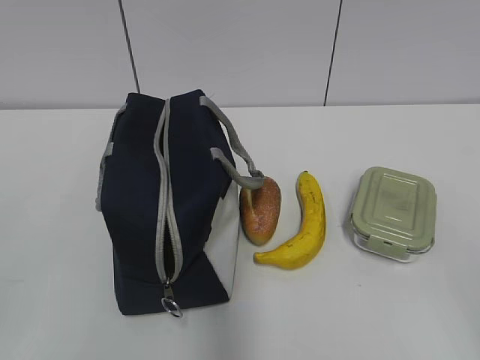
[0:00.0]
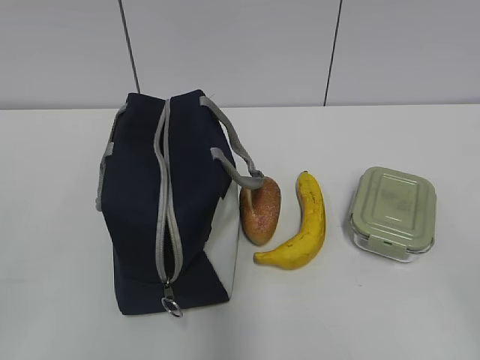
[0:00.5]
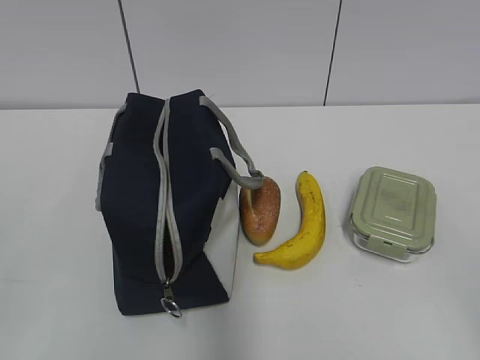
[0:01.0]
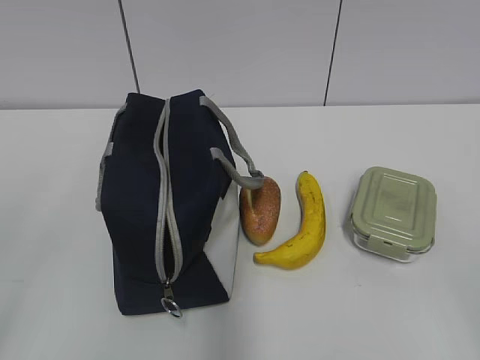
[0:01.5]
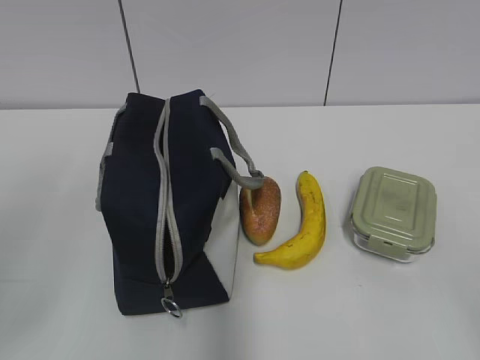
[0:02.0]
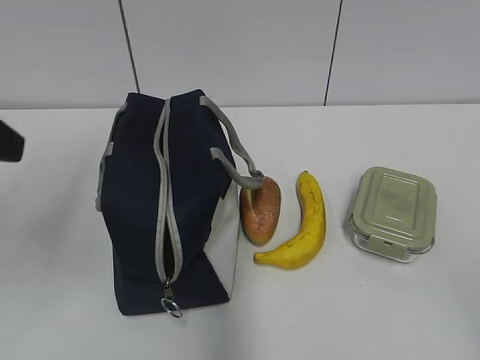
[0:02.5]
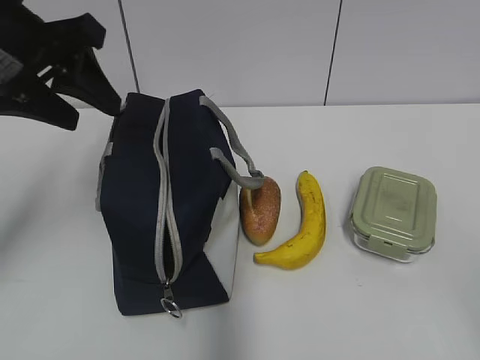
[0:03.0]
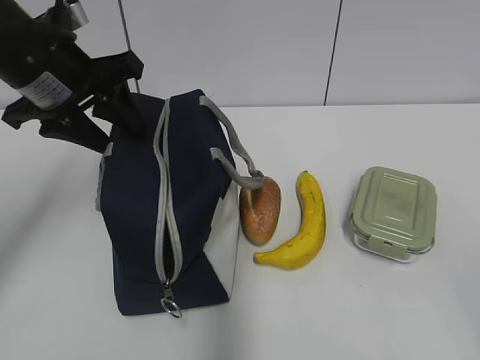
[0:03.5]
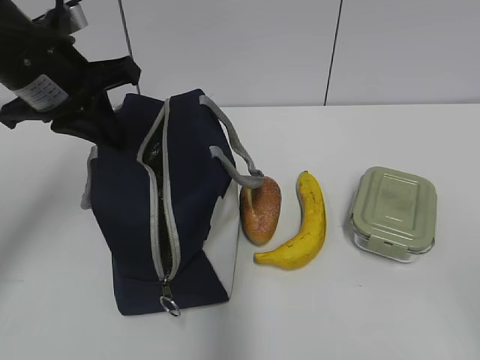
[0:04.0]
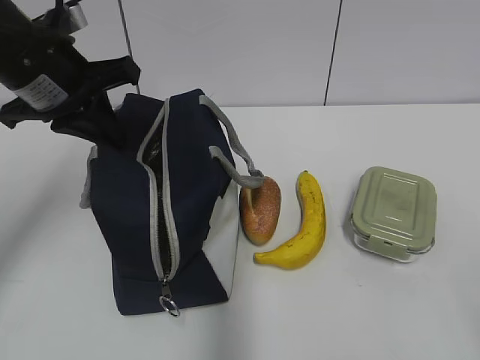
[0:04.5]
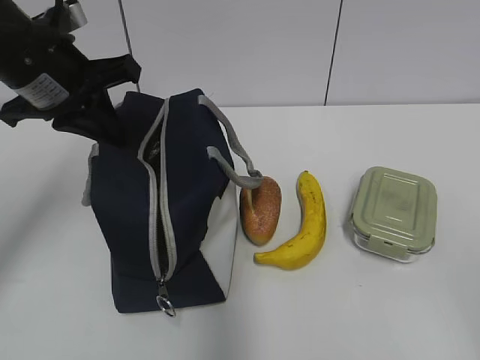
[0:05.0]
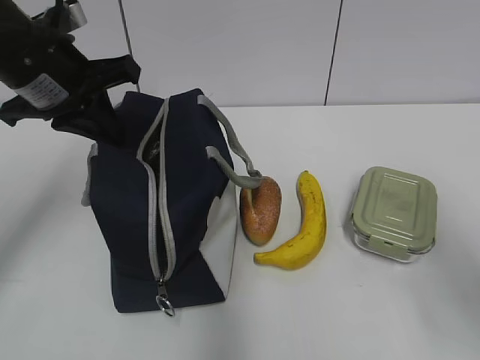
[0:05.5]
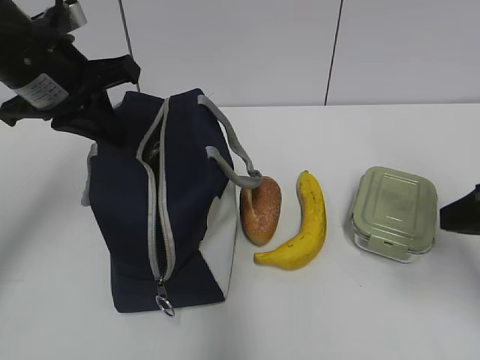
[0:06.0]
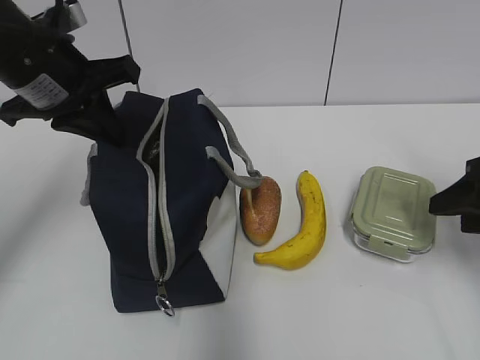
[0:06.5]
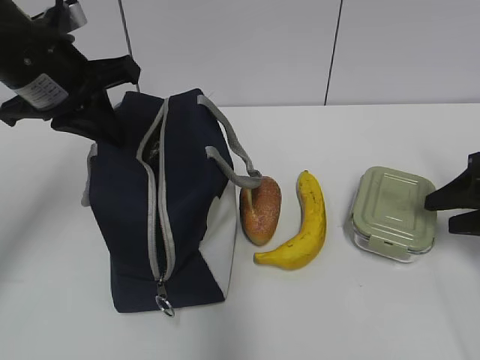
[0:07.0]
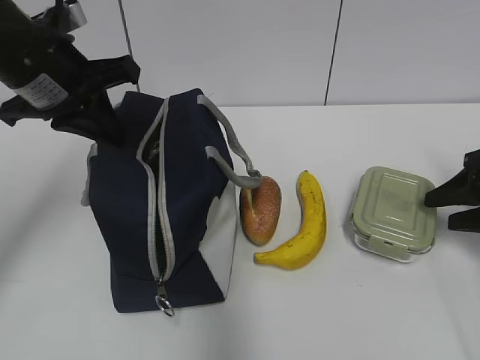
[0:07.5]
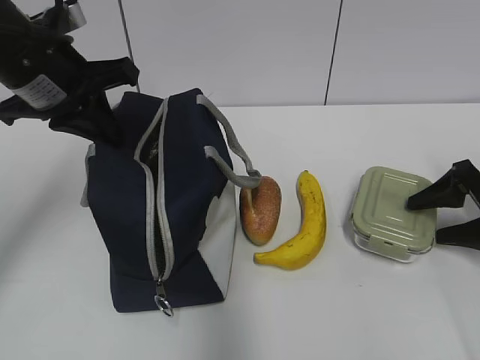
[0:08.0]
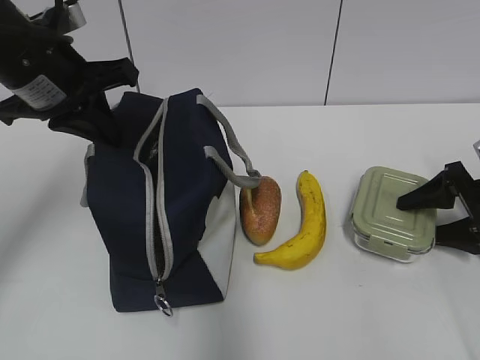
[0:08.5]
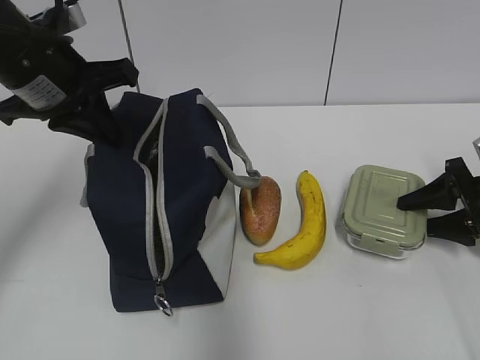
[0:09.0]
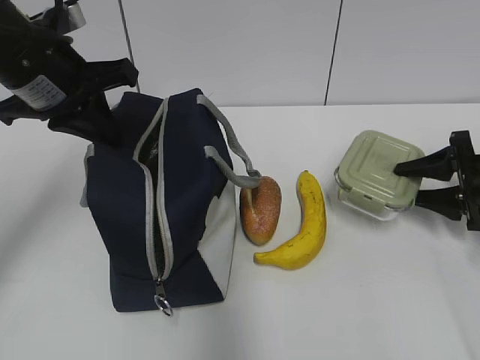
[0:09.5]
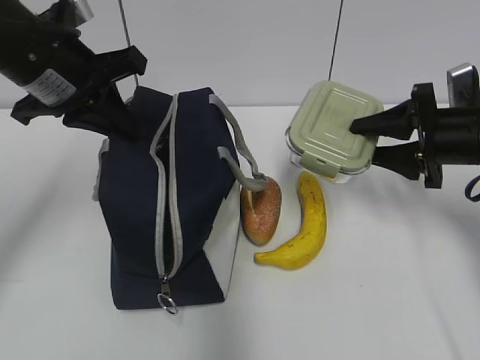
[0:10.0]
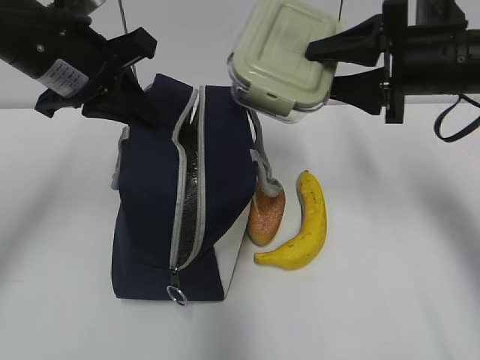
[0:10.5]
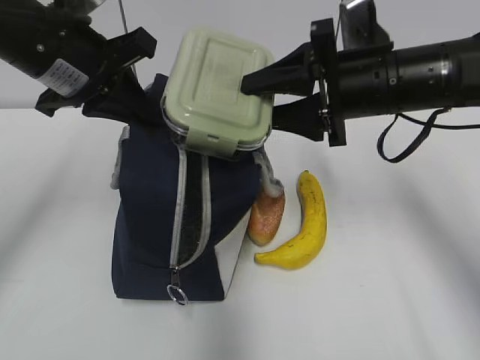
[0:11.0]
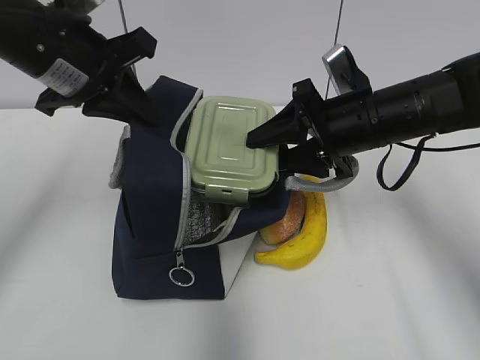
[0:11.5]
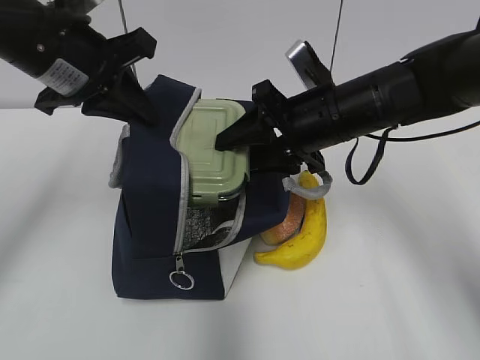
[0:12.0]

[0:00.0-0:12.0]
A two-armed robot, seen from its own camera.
Step, 0:00.0 to 0:09.0: Grab the lunch box with your right hand.
0:02.0 to 0:04.0: The left gripper moves forward, some 25 cm, and closes.
0:04.0 to 0:06.0: The right gripper moves forward, about 20 cm.
0:06.0 to 0:08.0: The right gripper travels forward, downward and to the right by approximately 20 cm.
0:08.0 to 0:10.0: The right gripper is displaced to the left and upward by some 10 cm, and closes its fingers.
0:10.0 to 0:12.0: The right gripper heads to the left, covering roughly 15 cm.

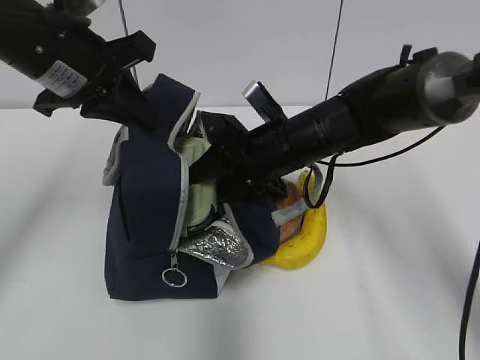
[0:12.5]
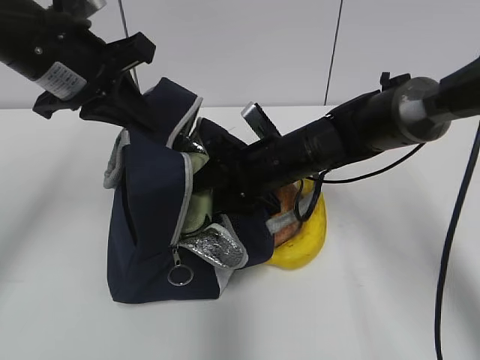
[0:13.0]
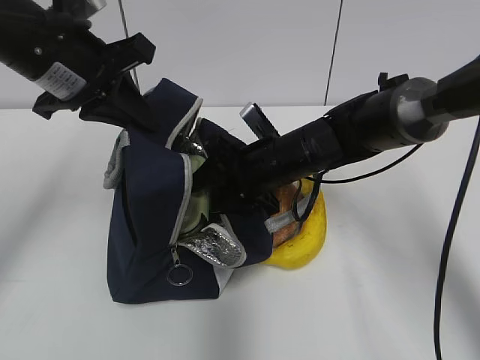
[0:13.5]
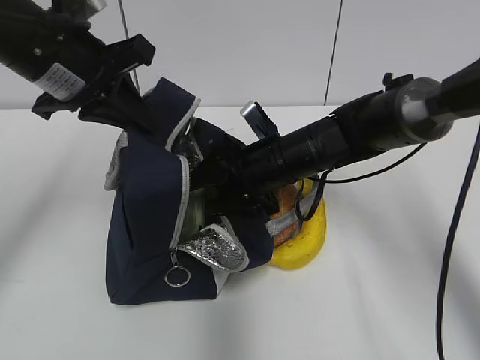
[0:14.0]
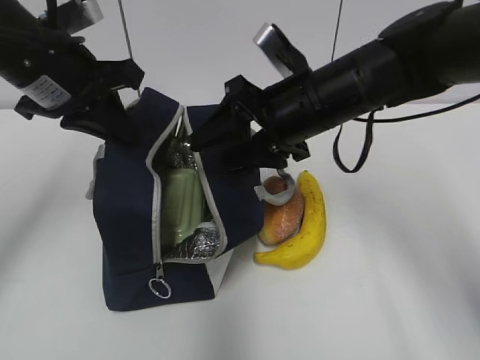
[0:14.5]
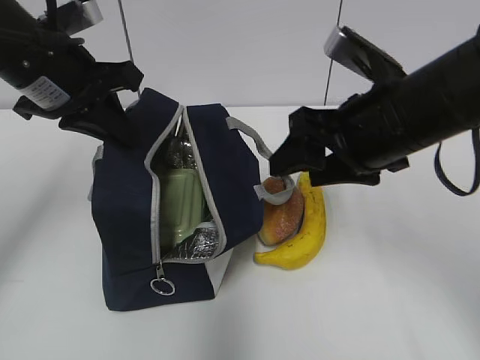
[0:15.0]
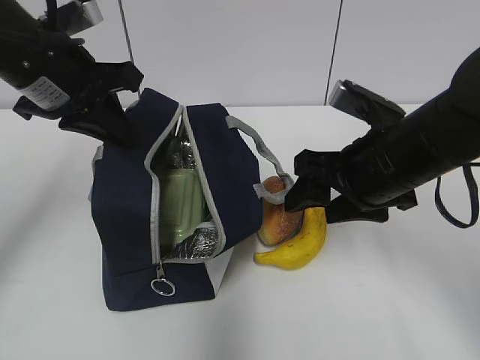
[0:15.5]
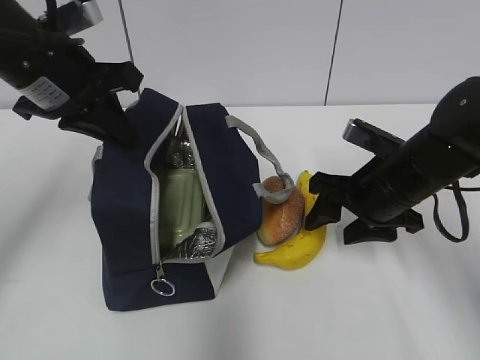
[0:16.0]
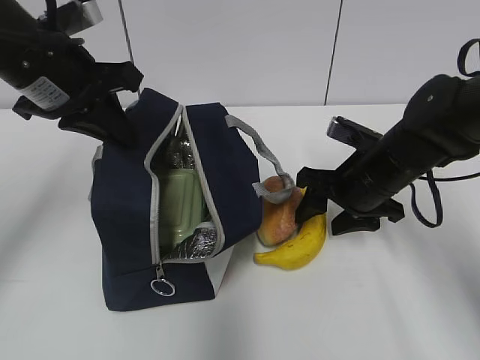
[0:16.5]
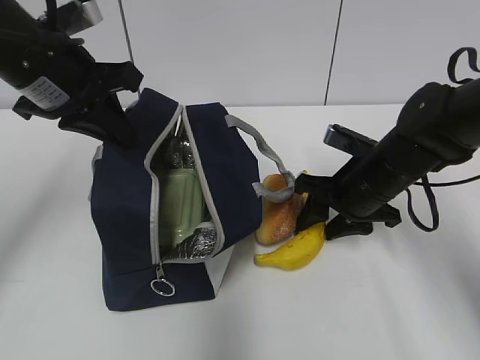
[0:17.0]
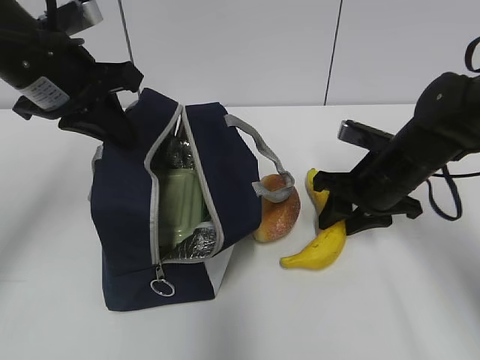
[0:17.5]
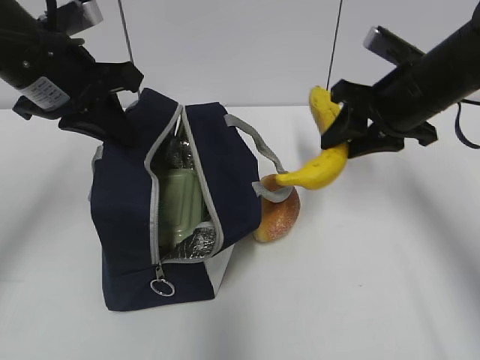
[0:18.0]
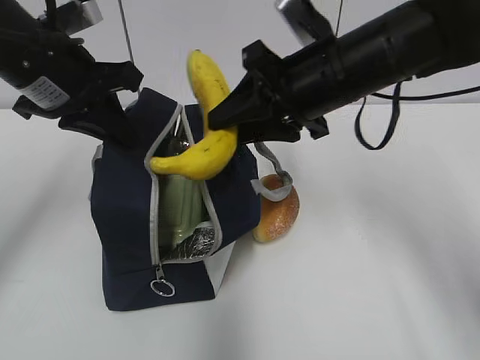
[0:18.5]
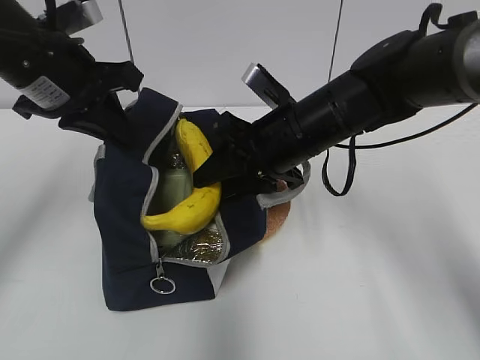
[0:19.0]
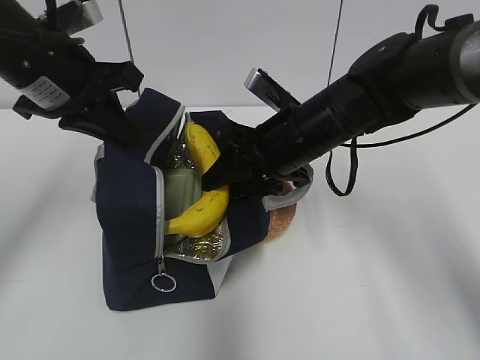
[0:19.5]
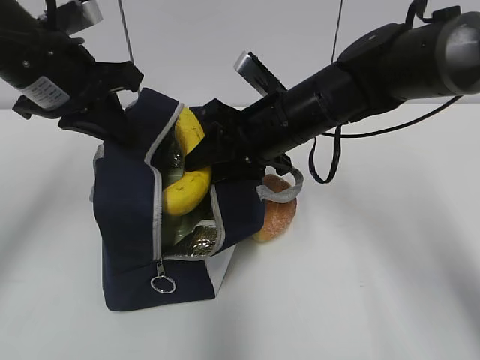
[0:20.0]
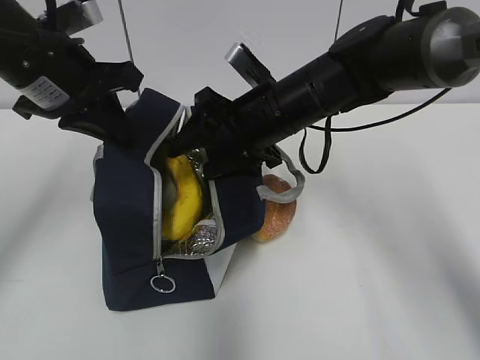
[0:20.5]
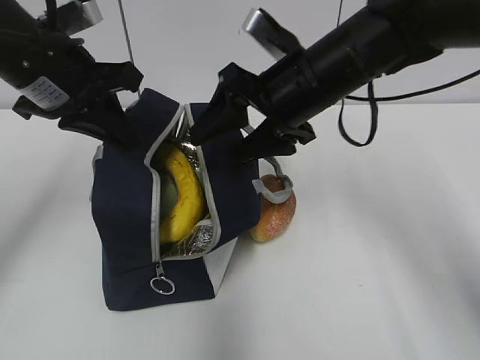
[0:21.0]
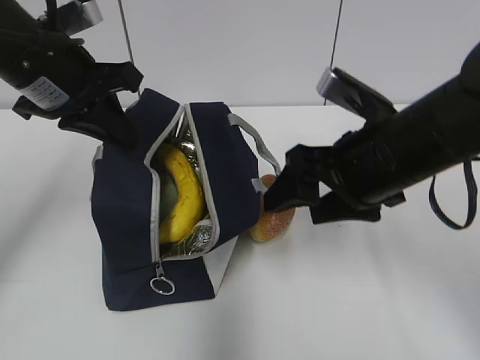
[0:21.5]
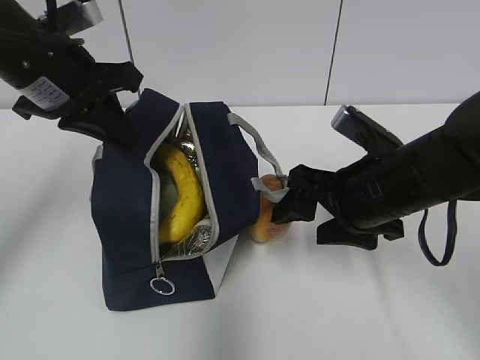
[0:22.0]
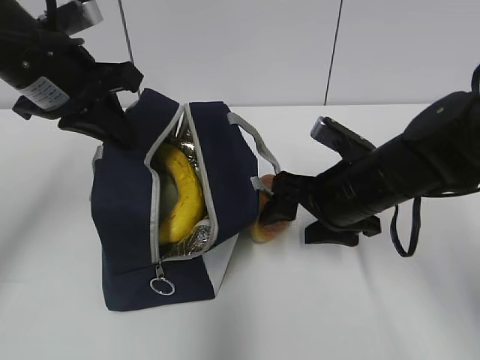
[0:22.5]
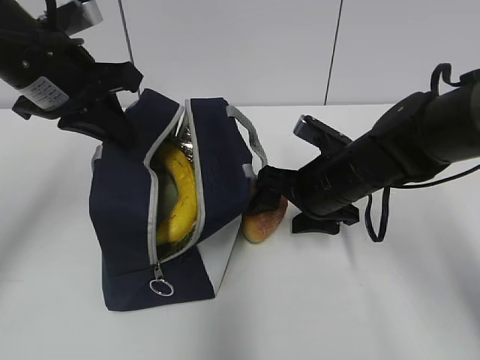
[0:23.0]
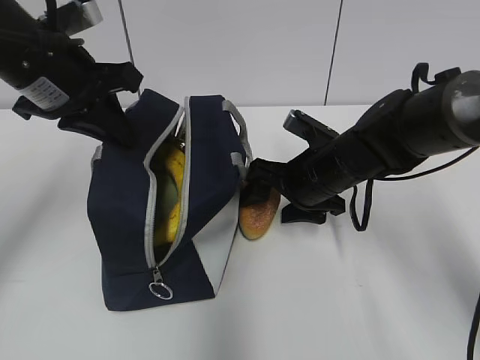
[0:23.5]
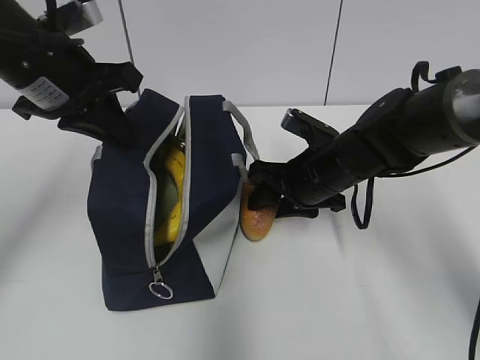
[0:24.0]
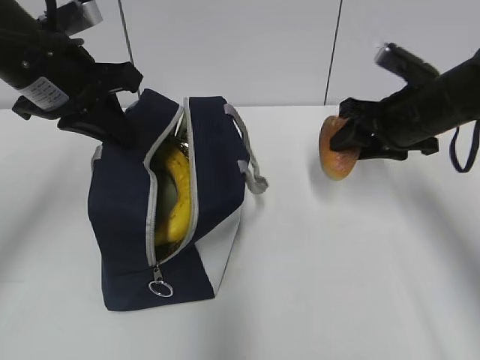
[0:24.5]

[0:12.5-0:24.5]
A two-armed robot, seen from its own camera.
Step, 0:14.0 to 0:17.0: Grab the banana with your right hand.
Step, 0:17.5 to 0:20.0: Place it into the bag with your right hand.
Step, 0:21.0 to 0:23.5: Grab the bread with your right hand.
0:12.5 to 0:14.5: The right gripper goes some 5 cm upward.
0:14.5 to 0:16.5: The right gripper shifts approximately 10 cm downward and to the right.
0:16.5 to 0:18.5: The right gripper heads upward and to the left, covering some 15 cm.
0:18.5 to 0:20.5: The right gripper travels downward by some 5 cm, and opens up.
0:20.5 to 0:22.5: The right gripper is displaced to the right, backward and downward by some 10 cm.
0:22.5 to 0:24.5: The right gripper heads to the right and forward, covering roughly 10 cm, and closes up.

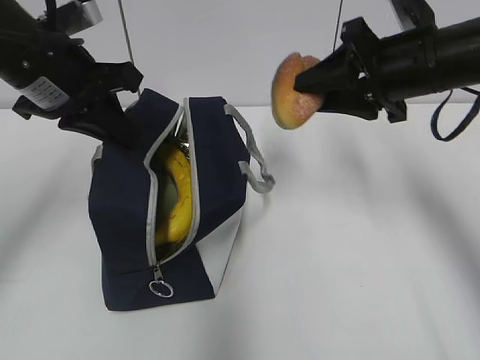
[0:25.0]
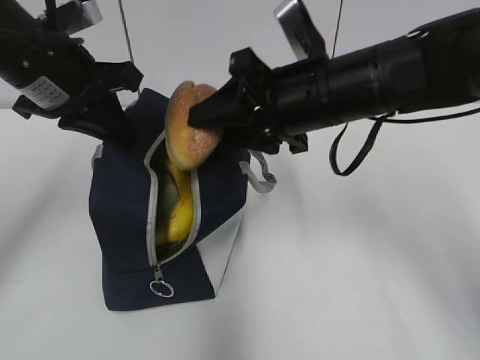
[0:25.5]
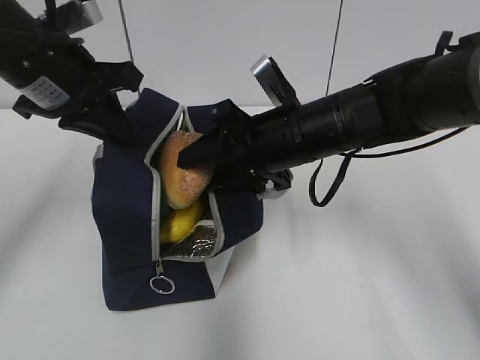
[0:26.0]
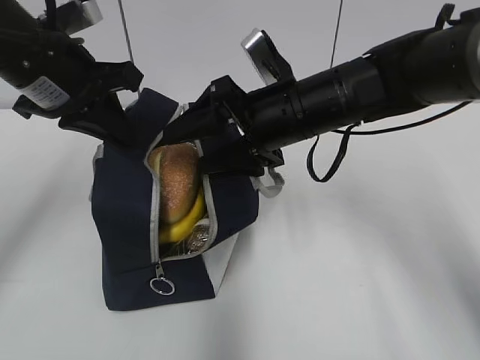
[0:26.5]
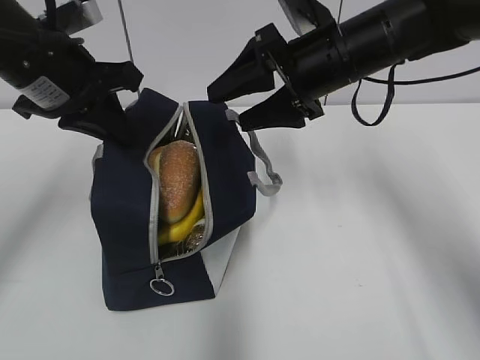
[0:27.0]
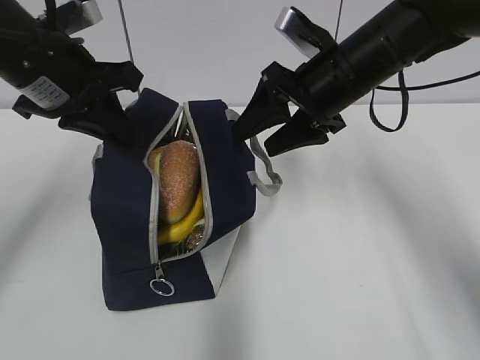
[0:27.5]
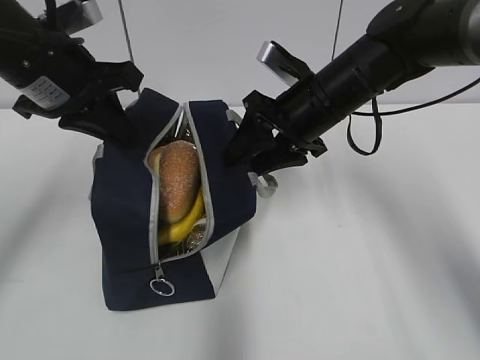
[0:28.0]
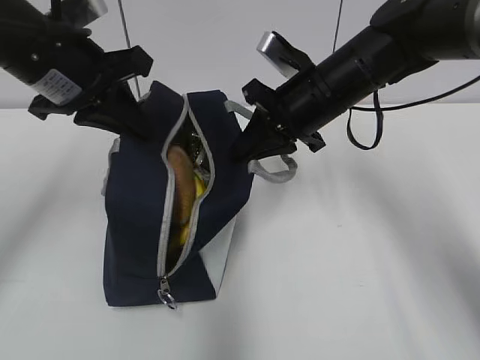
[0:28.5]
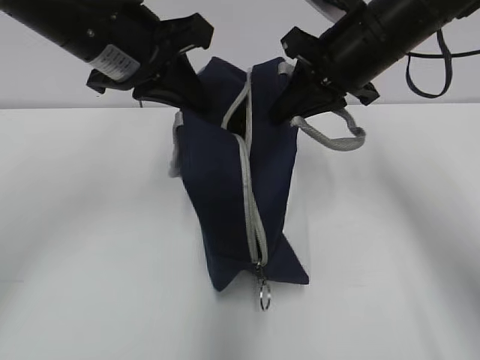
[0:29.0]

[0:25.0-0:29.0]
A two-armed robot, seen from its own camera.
Step, 0:26.5 to 0:28.0: Grab the lunch bag with your right hand.
0:25.0 to 0:27.0: The right gripper is displaced to the left by about 10 cm, and opens.
0:27.0 to 0:29.0: The right gripper travels downward and back again, some 5 cm each way, and closes its fingers; the left gripper heads to the right, covering roughly 5 cm.
